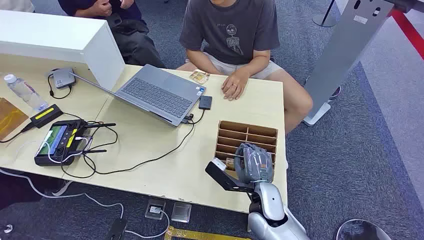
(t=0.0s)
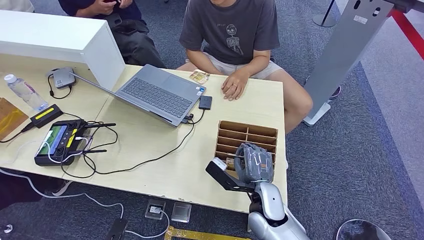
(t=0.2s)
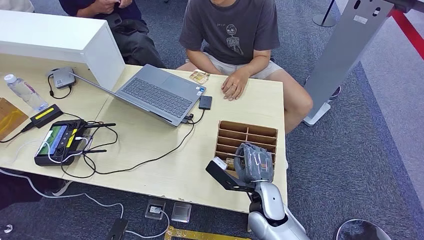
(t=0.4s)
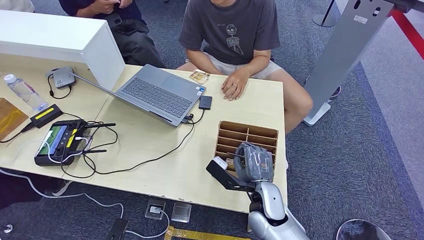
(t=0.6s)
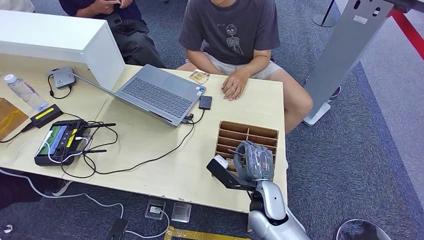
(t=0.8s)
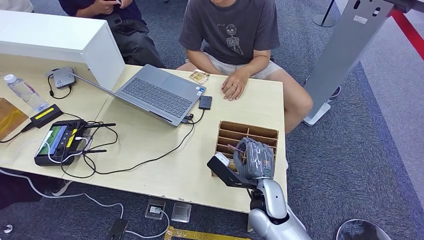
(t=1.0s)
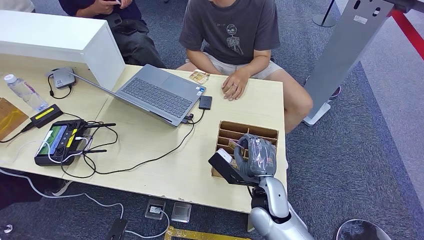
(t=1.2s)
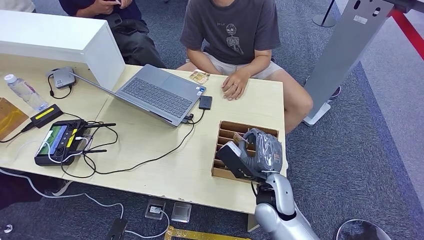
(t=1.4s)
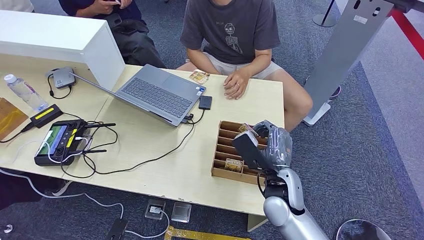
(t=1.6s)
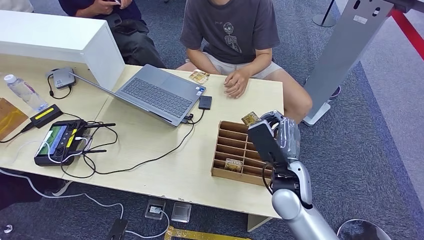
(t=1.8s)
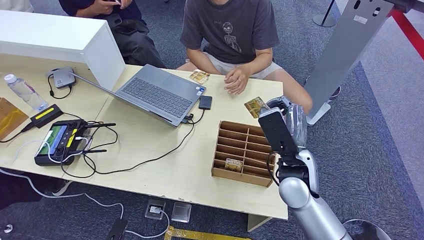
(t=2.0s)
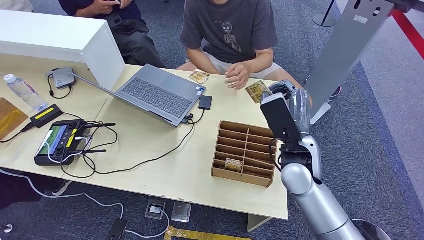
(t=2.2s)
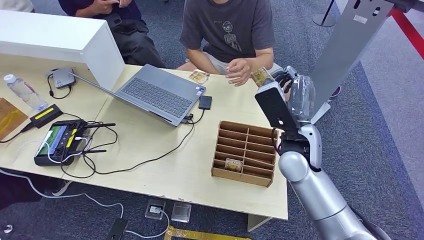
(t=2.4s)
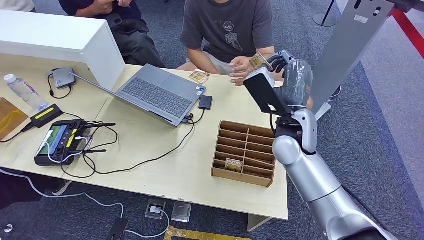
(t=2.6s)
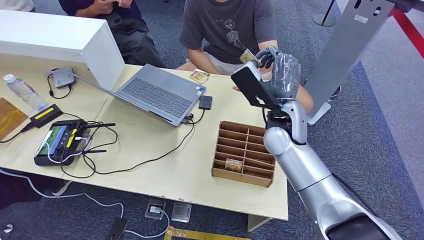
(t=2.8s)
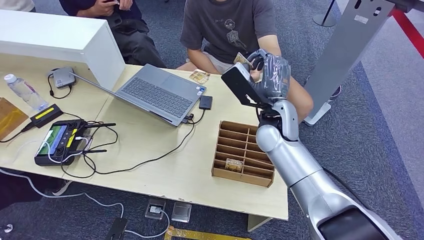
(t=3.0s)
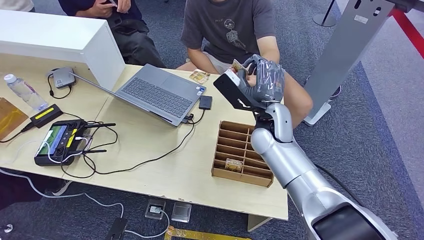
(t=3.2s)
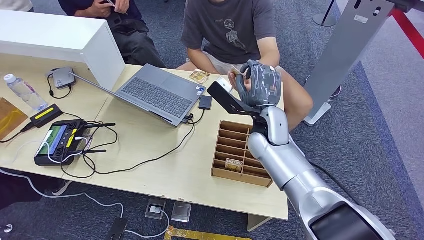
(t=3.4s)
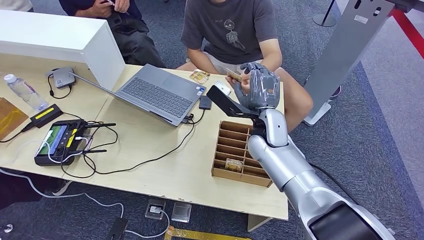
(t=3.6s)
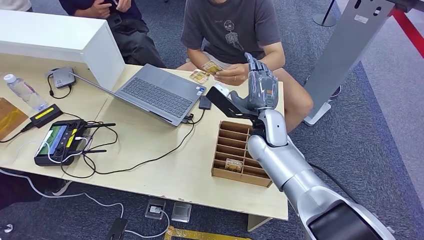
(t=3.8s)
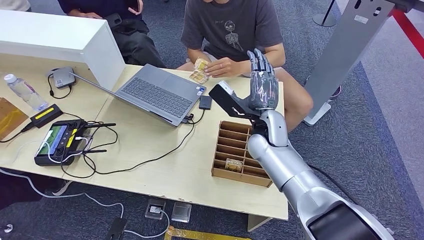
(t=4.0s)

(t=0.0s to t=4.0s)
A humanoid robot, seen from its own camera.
Step, t=0.0s - t=1.4s: Pick up the room card from the card holder.
Step, t=1.8s - t=4.0s: Hand the room card to the target.
t=1.4s - t=2.6s: The right hand goes about 15 cm upward and forward.
t=2.6s - t=4.0s: The right hand goes some 5 cm to the left.

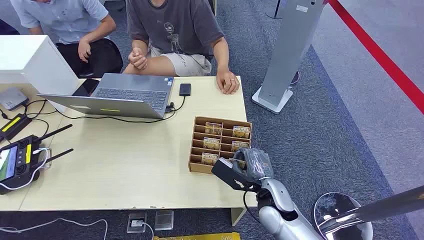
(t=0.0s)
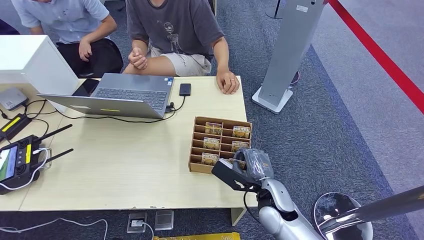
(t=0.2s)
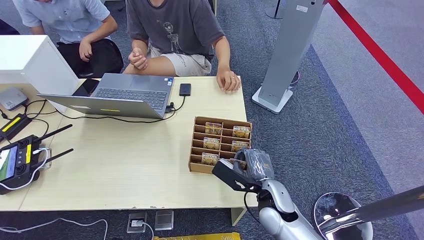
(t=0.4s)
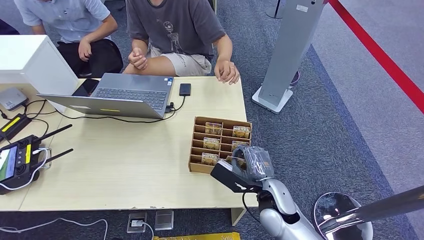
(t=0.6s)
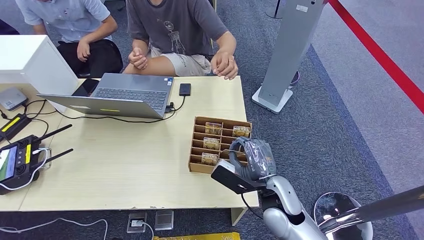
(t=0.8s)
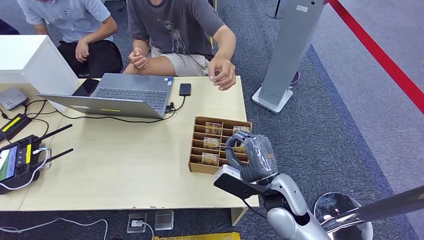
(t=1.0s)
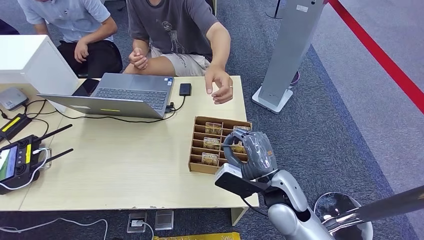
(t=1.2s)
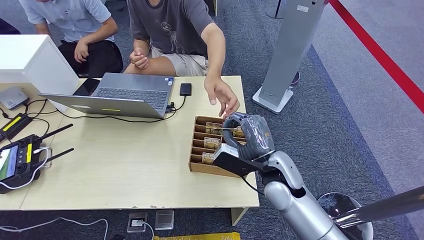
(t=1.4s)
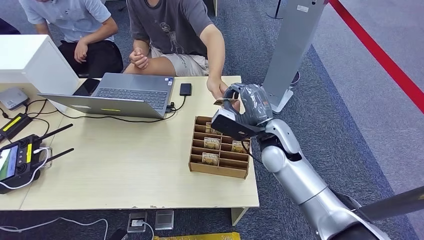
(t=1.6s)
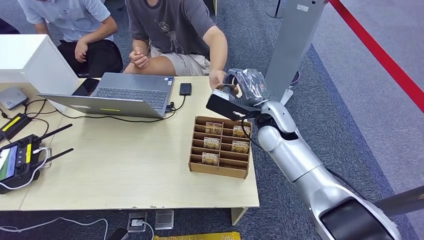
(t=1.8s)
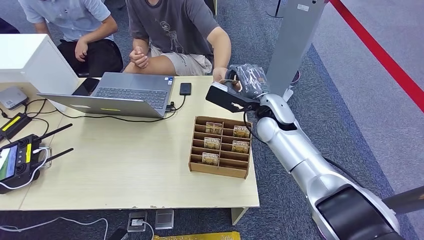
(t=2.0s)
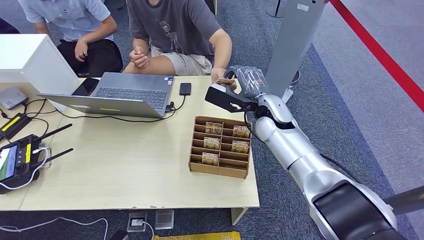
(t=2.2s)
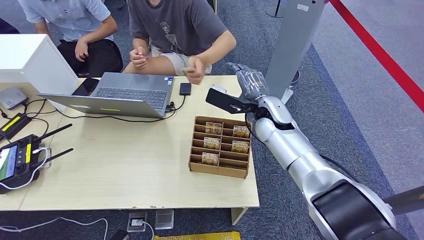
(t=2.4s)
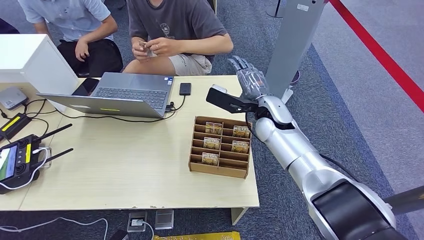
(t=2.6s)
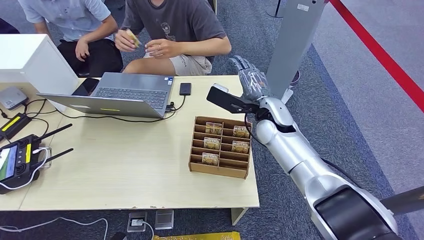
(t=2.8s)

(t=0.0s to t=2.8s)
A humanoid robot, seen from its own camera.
Step, t=0.0s - t=1.0s: Pick up the room card from the card holder.
Step, t=1.4s - t=2.8s: Hand the room card to the target.
t=1.4s - t=2.8s: The right hand shifts about 15 cm forward and upward.
